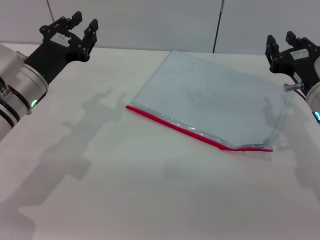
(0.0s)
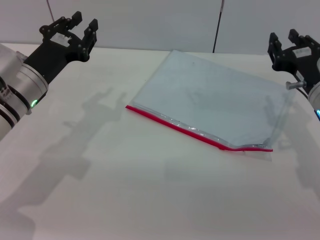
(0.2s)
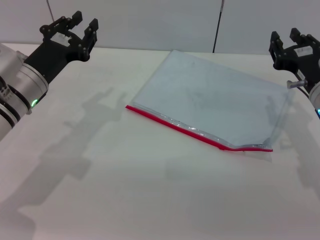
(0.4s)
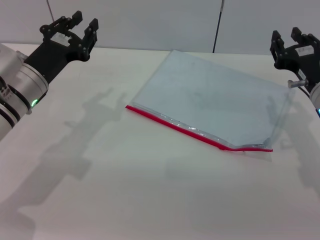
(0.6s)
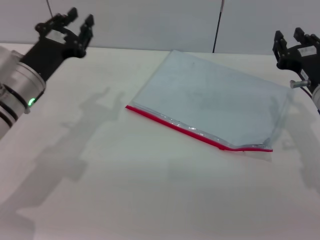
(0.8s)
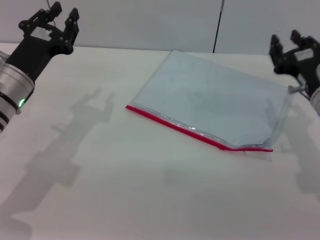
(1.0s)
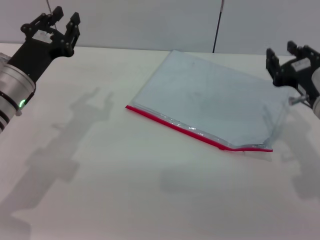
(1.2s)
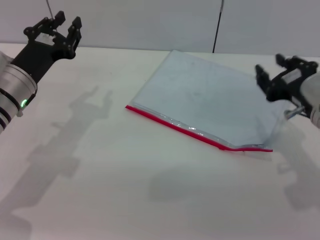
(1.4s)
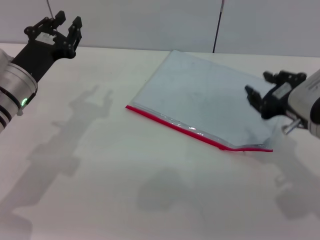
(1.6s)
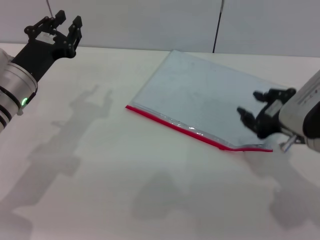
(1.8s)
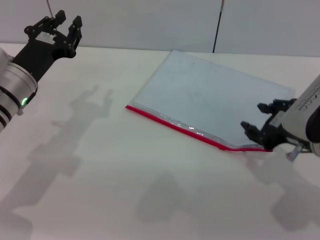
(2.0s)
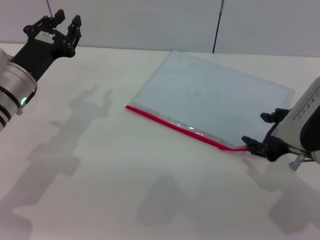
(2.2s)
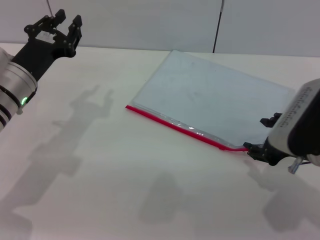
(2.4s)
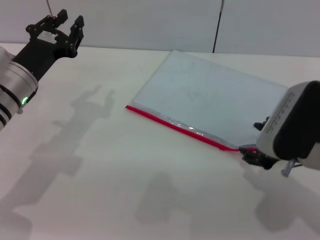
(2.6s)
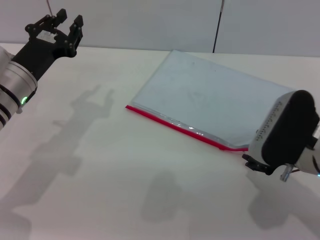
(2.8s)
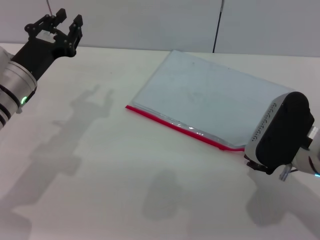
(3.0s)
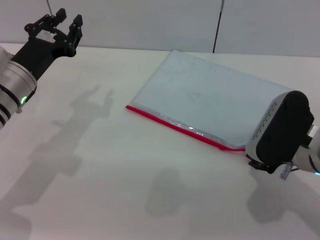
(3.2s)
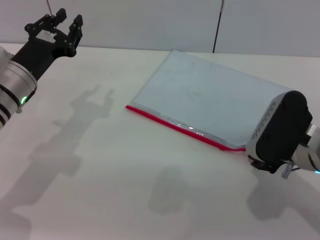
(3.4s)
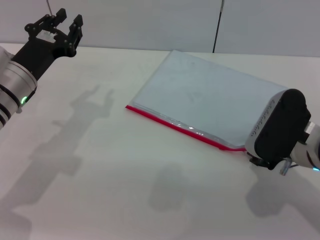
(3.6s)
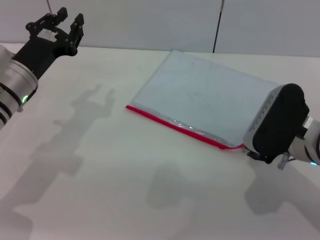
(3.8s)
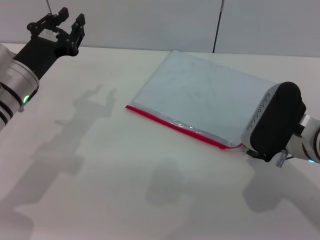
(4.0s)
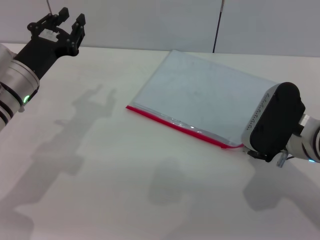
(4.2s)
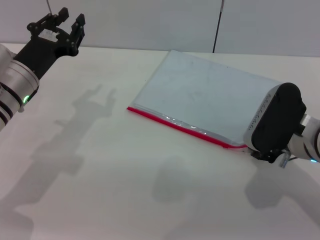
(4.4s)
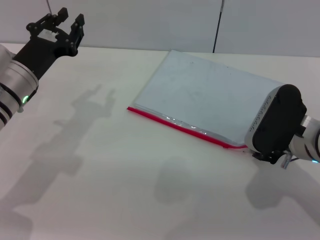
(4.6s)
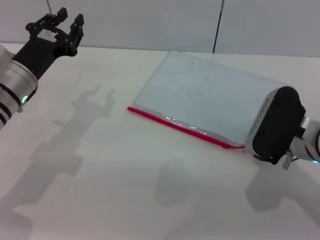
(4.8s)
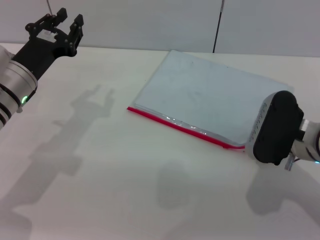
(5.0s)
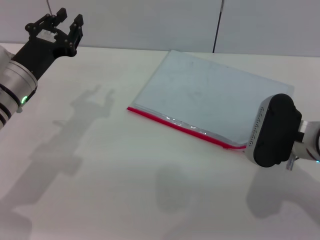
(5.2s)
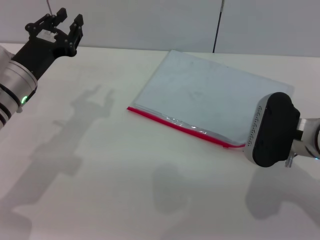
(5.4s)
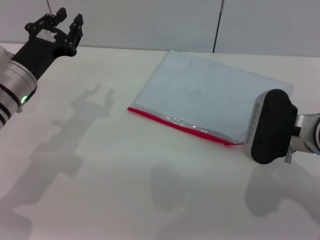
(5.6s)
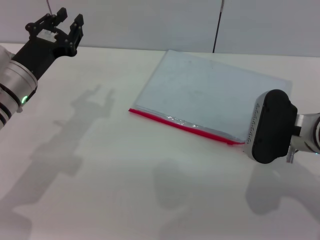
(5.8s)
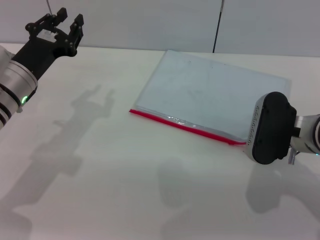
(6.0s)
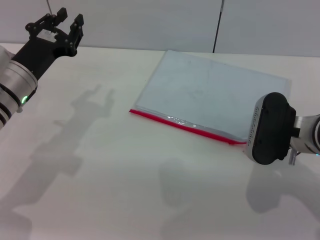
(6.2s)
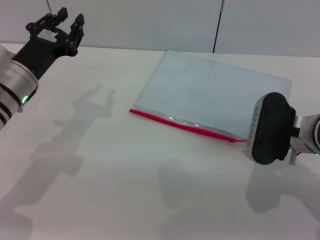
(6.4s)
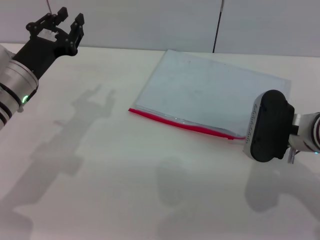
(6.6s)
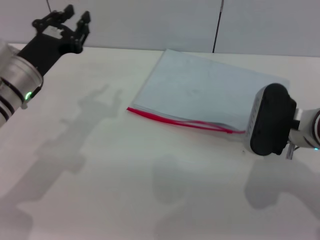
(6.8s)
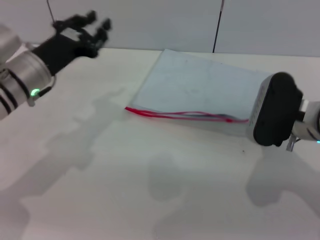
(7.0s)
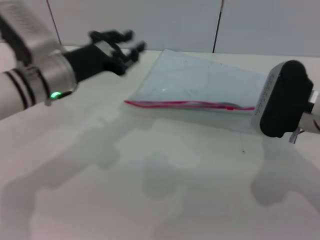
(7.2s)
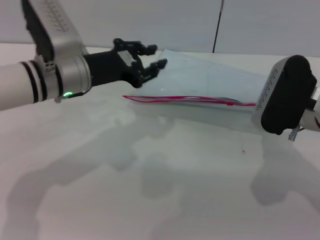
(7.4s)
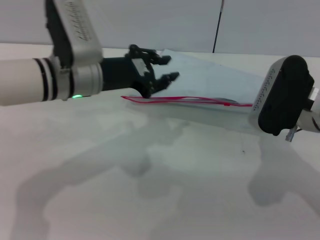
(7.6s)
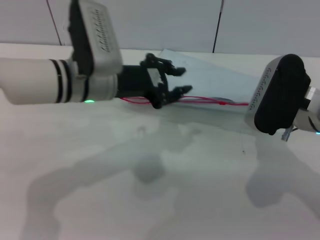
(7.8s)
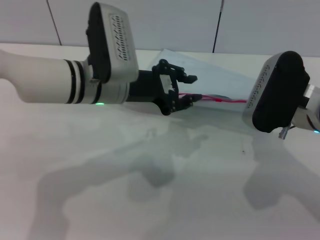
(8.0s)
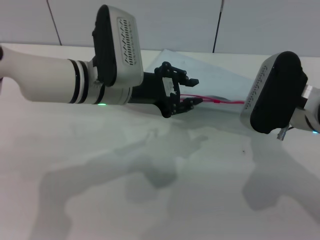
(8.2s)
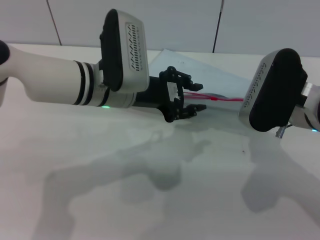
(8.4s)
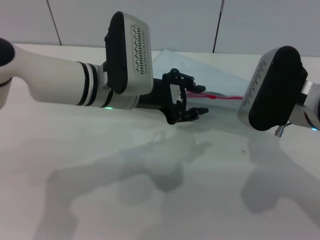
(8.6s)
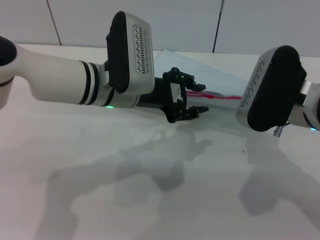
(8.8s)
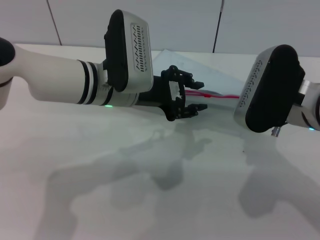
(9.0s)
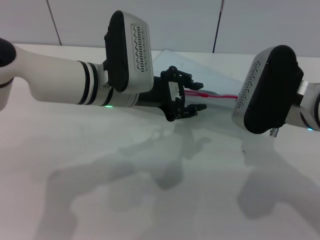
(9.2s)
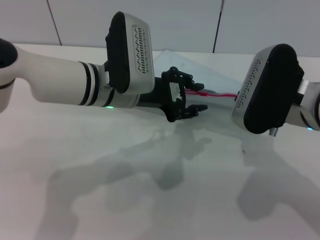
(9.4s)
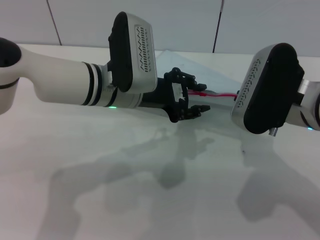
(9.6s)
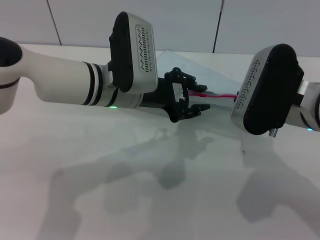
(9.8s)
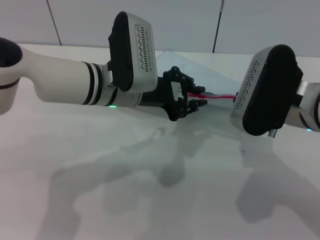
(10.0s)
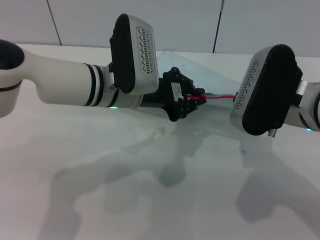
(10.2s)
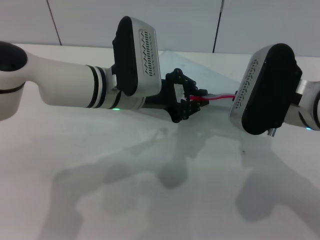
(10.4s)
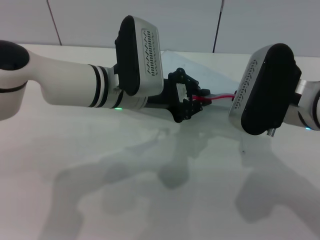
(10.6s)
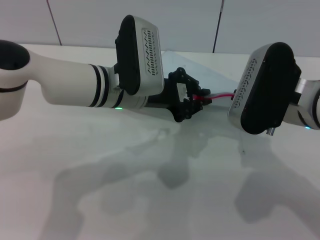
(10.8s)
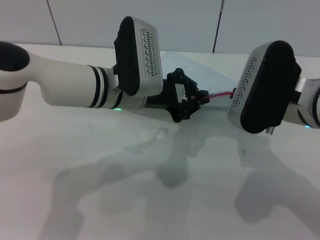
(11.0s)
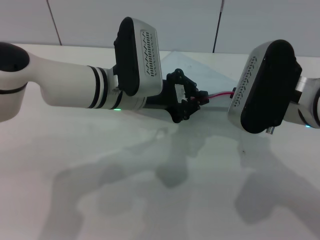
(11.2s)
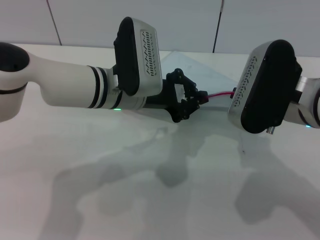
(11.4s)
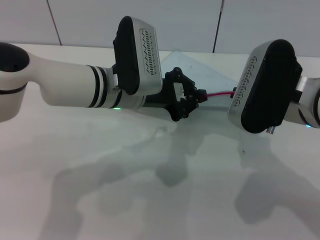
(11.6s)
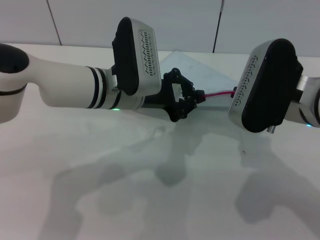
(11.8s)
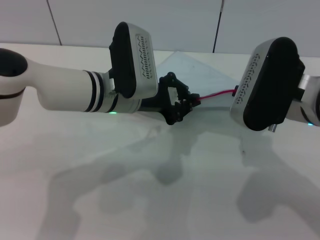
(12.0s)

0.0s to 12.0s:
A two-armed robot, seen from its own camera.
Step, 0.0s to 7.6s: Pick up the transparent plastic bag with the right gripper.
0.0s to 1.6s: The right gripper moves about 5 cm.
3.0s to 6.0s: The grippers stay close to where they were, moving slightly.
6.0s to 7.6s: The left gripper is displaced to the right by about 10 cm. Meanwhile the right gripper closes up.
7.6s to 9.0s: The left gripper goes approximately 5 cm to the right.
9.0s to 10.4s: The left gripper closes up.
10.4s to 12.0s: Both grippers stay put.

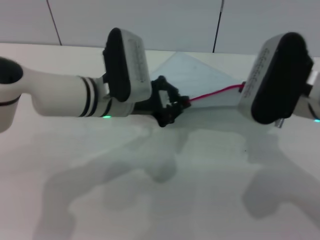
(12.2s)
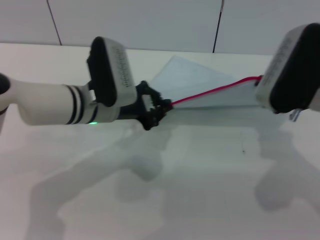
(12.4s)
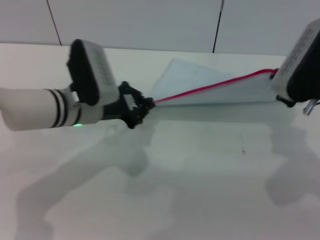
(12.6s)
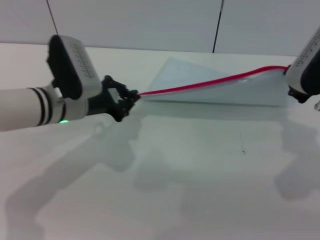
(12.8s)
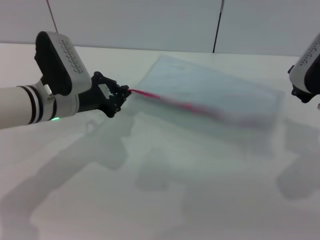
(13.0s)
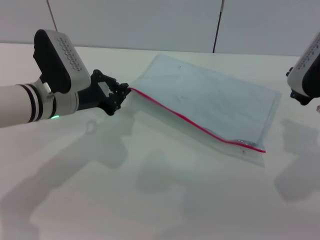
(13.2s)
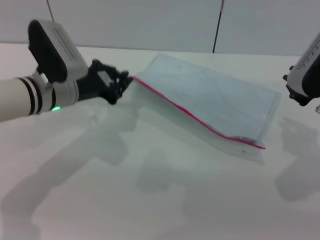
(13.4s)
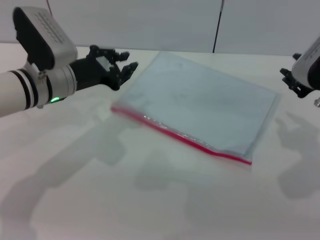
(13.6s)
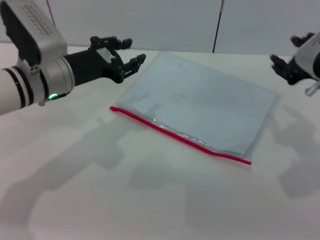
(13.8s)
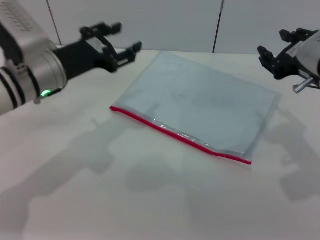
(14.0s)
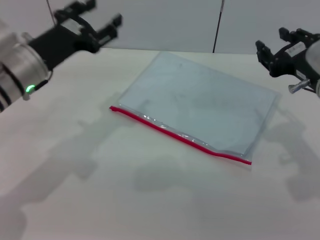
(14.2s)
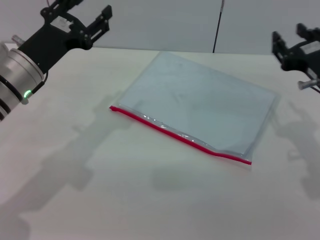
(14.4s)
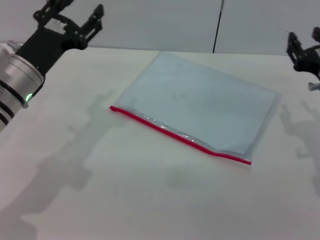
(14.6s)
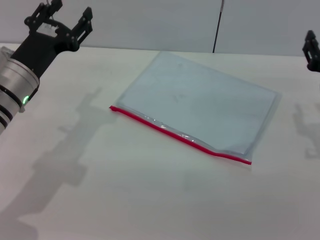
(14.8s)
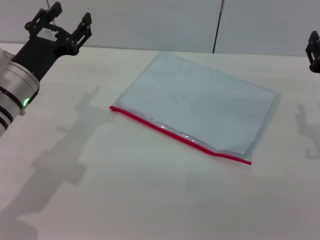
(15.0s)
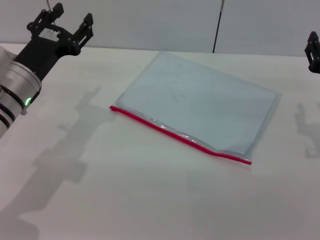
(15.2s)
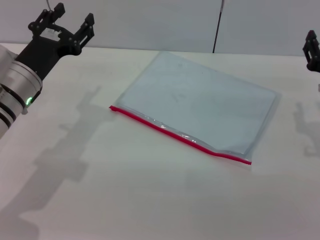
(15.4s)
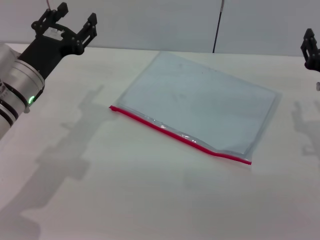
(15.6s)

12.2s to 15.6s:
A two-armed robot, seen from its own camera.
Step, 13.2s to 13.4s: Place the transparent plastic bag.
12.2s to 13.8s: The left gripper is displaced to the left by some 10 cm, and opens up. The right gripper moves to the right, some 5 cm, and opens its fingers.
13.8s to 15.6s: The right gripper goes approximately 10 cm downward. The left gripper opens its fingers.
